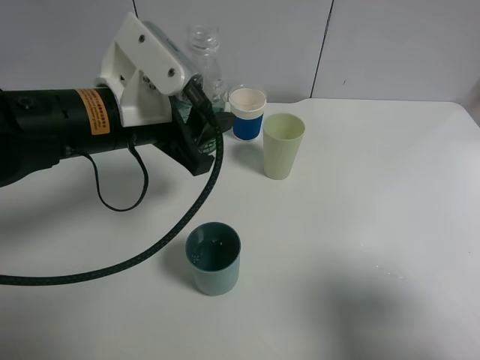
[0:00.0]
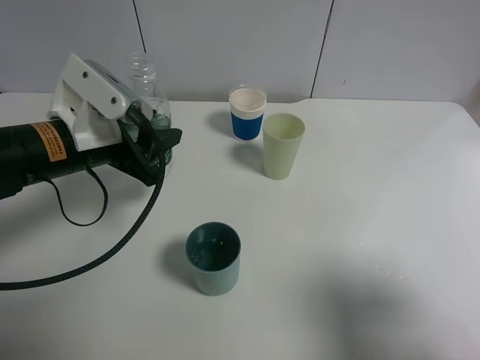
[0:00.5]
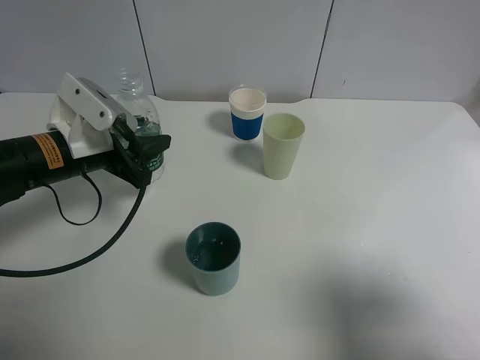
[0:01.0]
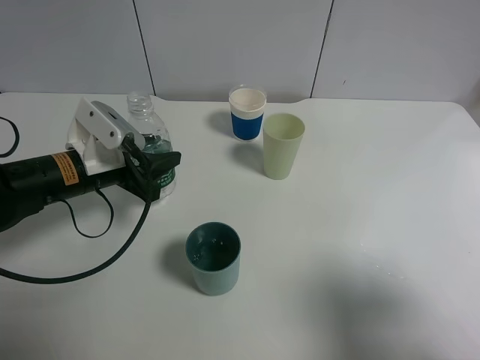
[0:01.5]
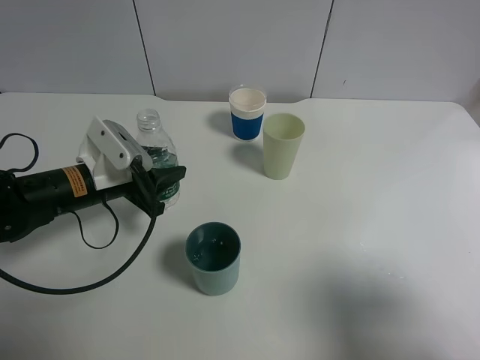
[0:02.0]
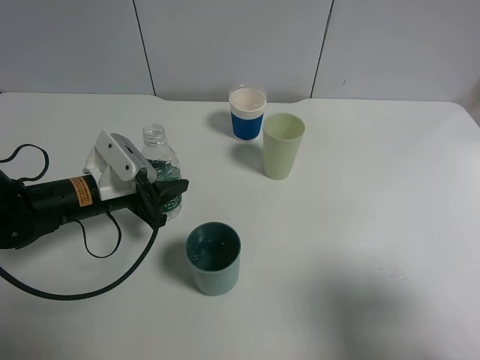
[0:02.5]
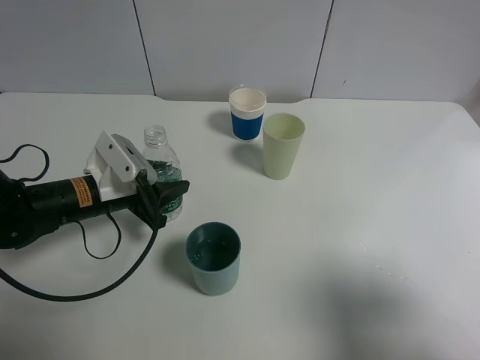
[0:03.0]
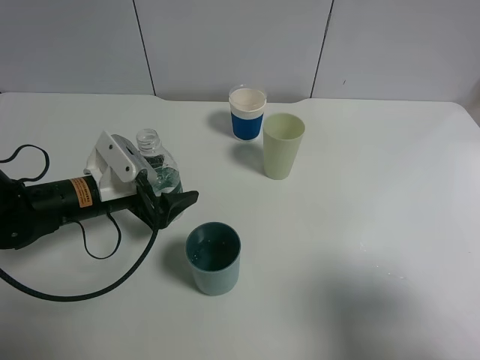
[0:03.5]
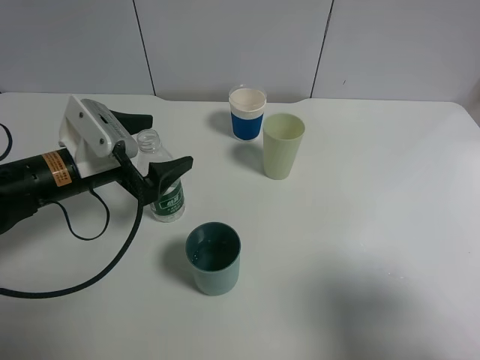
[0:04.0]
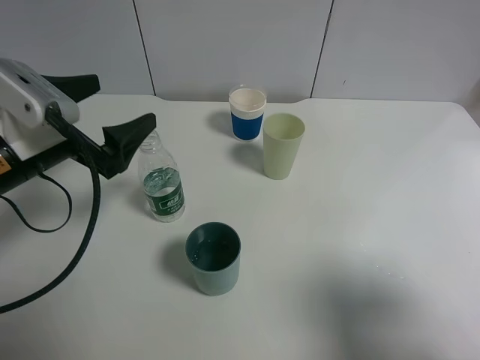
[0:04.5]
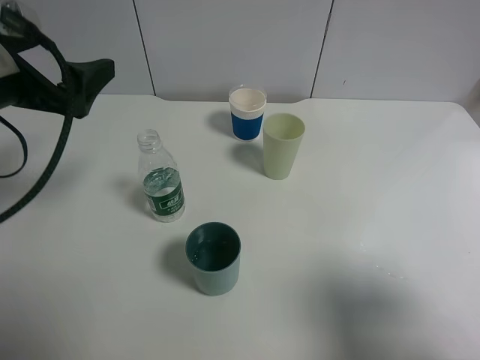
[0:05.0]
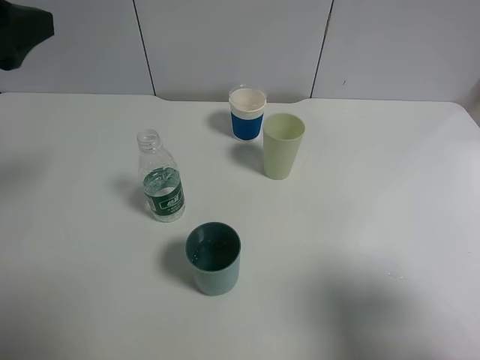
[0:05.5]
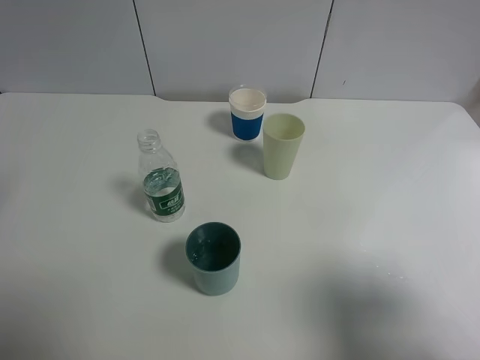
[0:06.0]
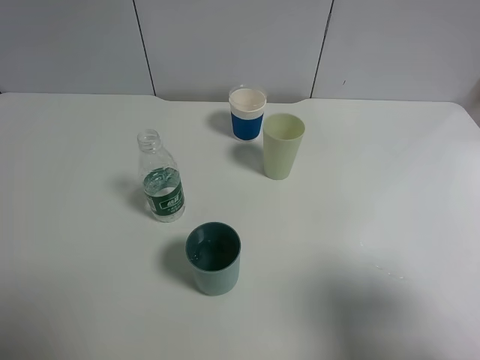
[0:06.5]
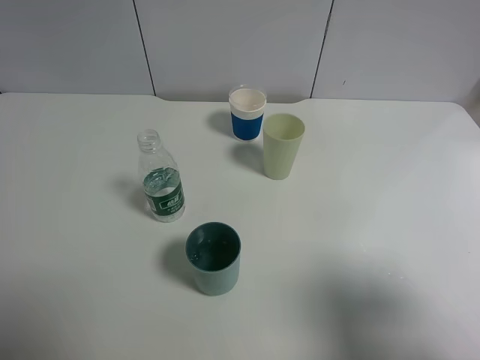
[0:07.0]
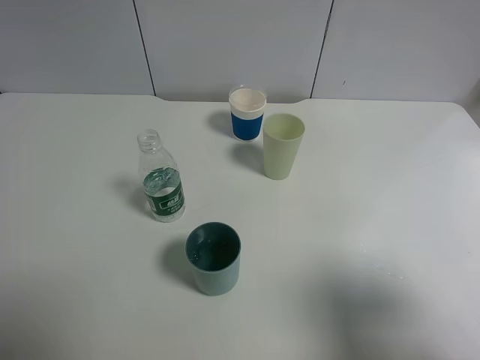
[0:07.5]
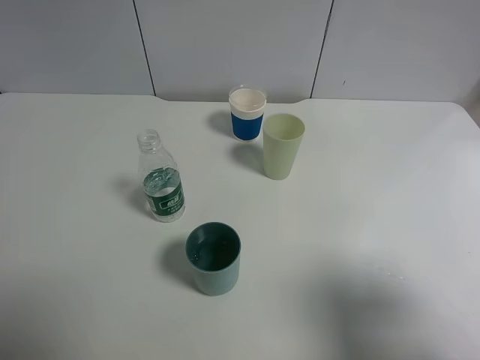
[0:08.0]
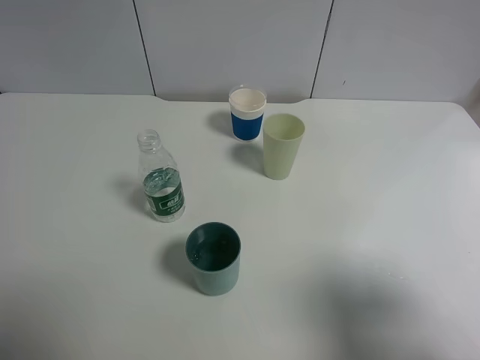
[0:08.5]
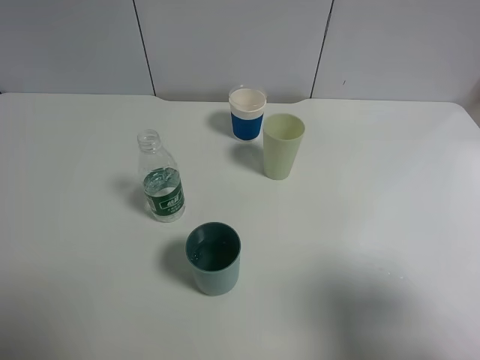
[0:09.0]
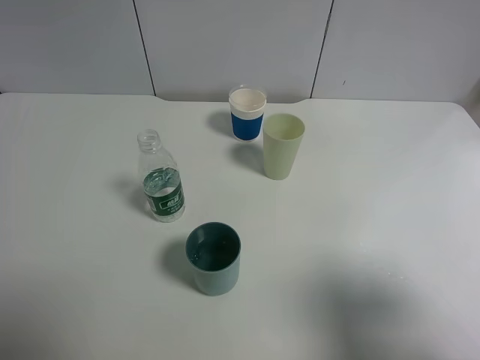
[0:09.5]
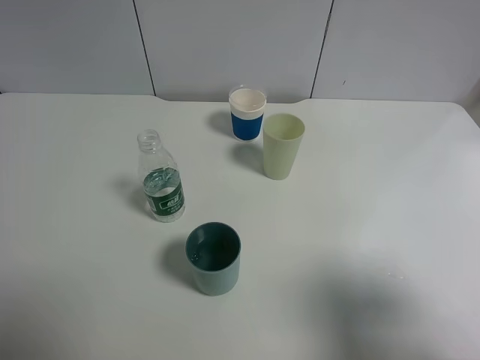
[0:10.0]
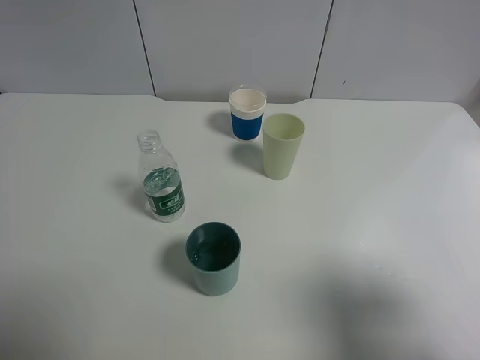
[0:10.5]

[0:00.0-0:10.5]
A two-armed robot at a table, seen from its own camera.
Task of the whole recording: use a gripper to hold the bottle of the drink and pour it into a random cup.
Step, 0:00.0 to 0:03.5: Place the mineral water bottle on the table with the left gripper.
0:00.0 to 0:02.0: The left gripper shifts approximately 15 cm downward and to the left.
0:02.0 to 0:04.0: The left gripper opens.
0:04.0 to 0:06.5: The left gripper goes approximately 30 cm upward, backward and to the left.
0:08.5 to 0:10.5: Both grippers stay about where they are.
